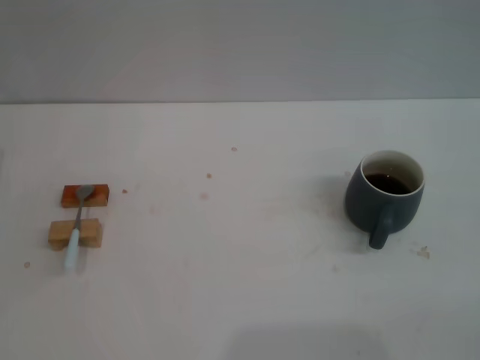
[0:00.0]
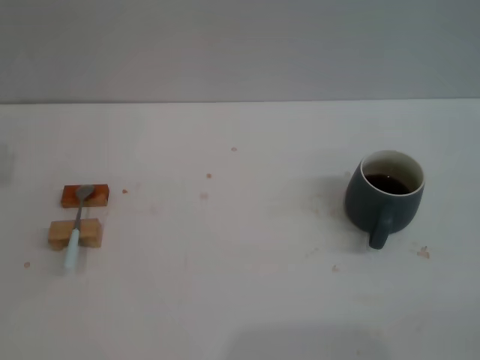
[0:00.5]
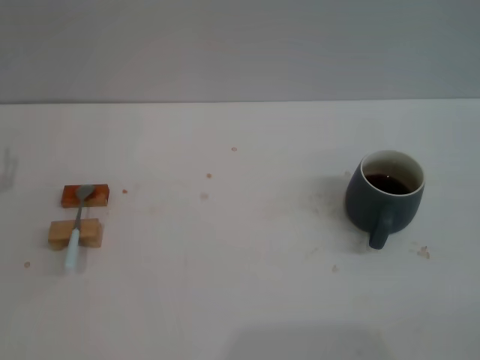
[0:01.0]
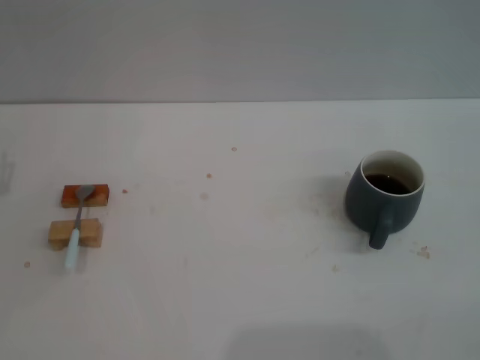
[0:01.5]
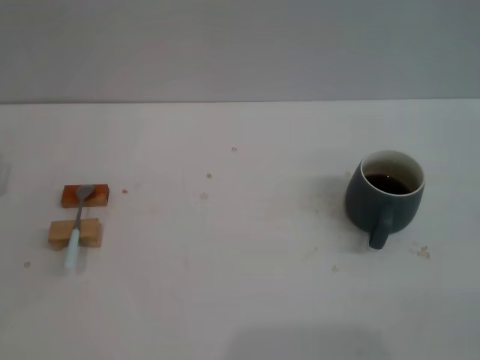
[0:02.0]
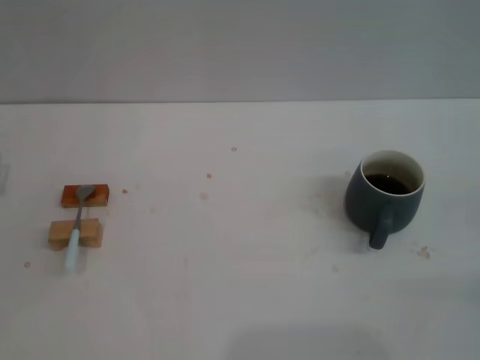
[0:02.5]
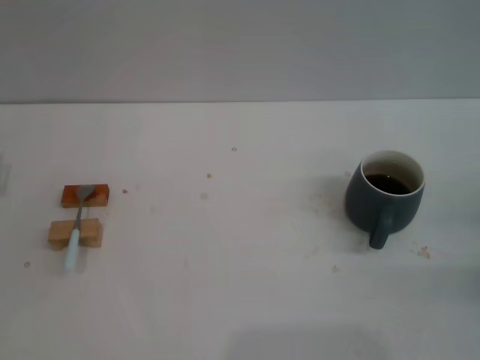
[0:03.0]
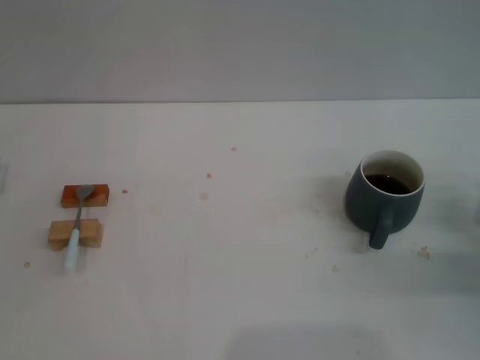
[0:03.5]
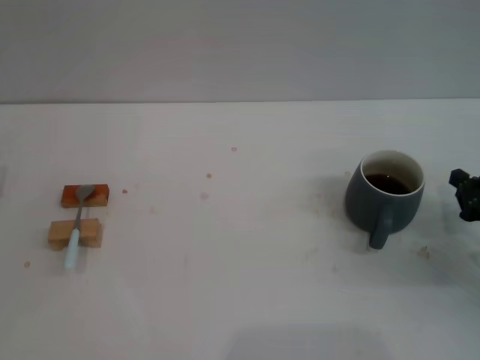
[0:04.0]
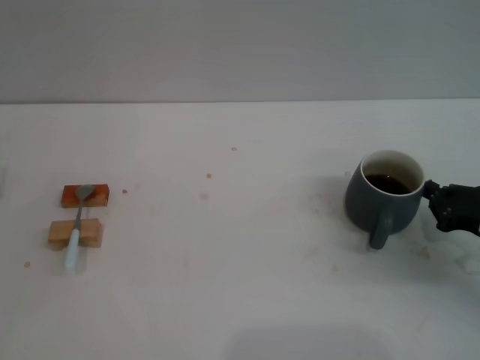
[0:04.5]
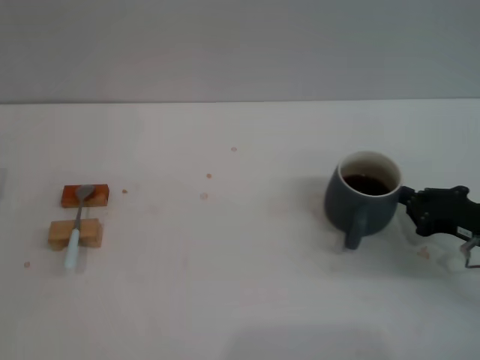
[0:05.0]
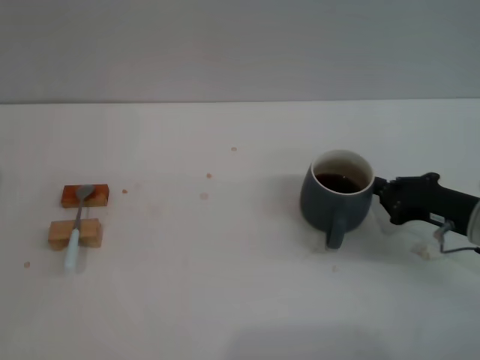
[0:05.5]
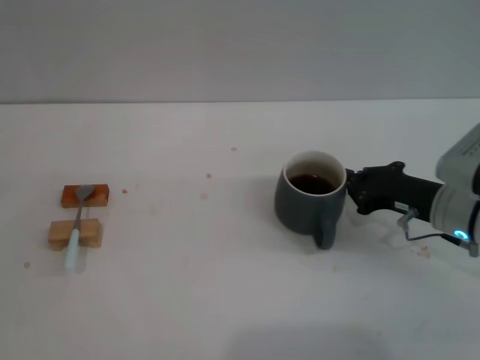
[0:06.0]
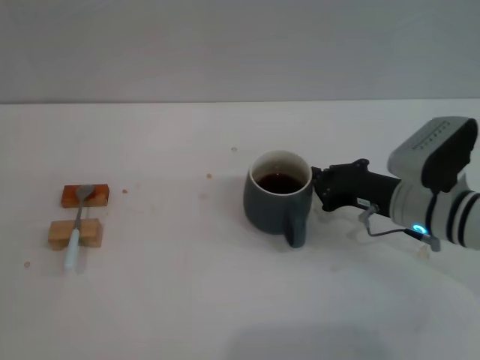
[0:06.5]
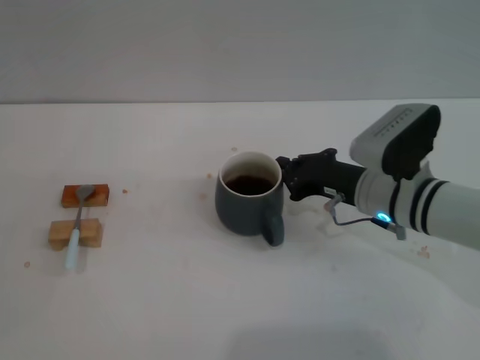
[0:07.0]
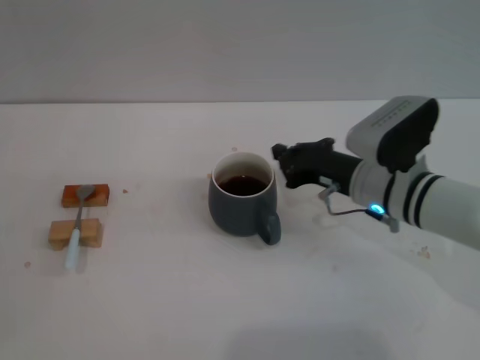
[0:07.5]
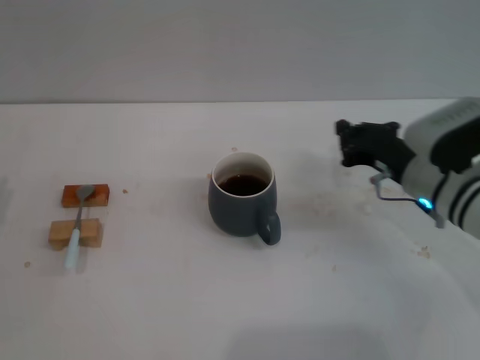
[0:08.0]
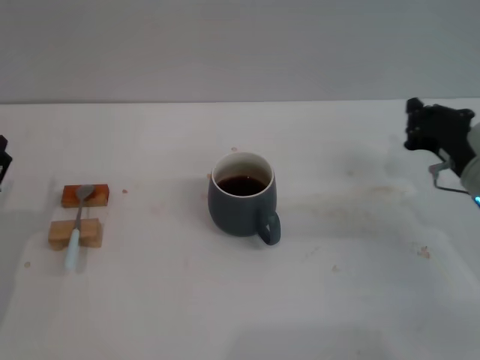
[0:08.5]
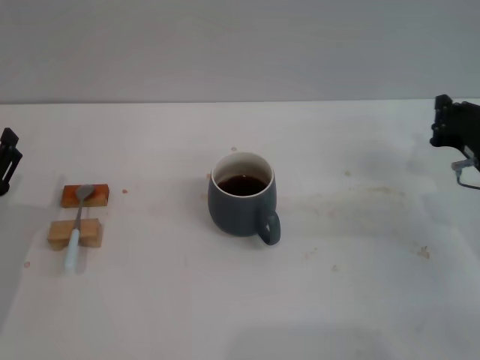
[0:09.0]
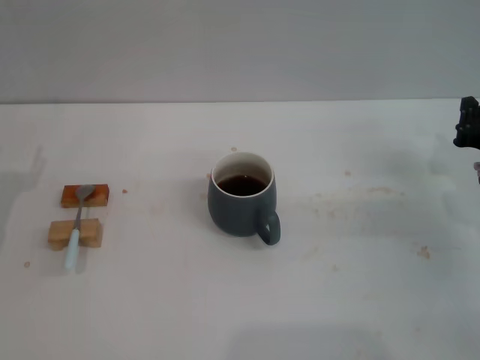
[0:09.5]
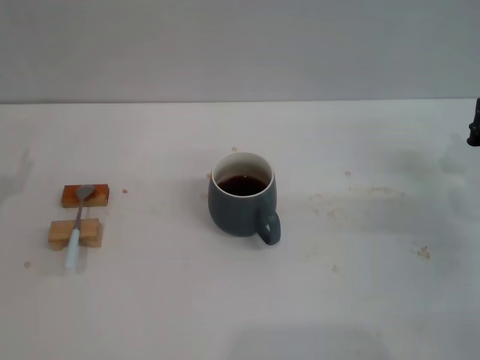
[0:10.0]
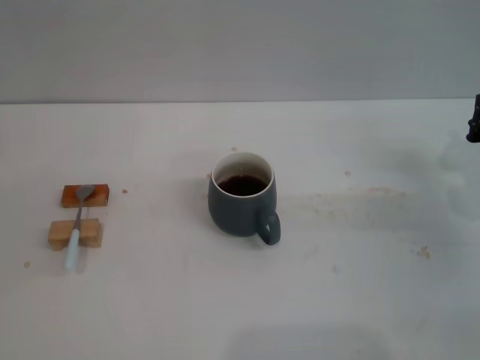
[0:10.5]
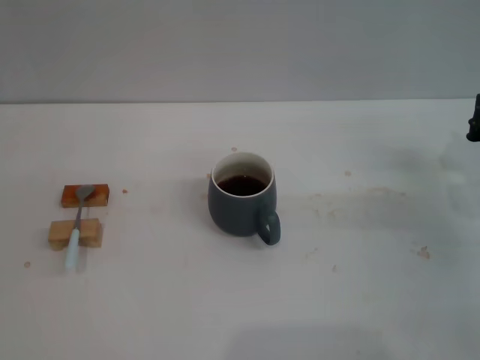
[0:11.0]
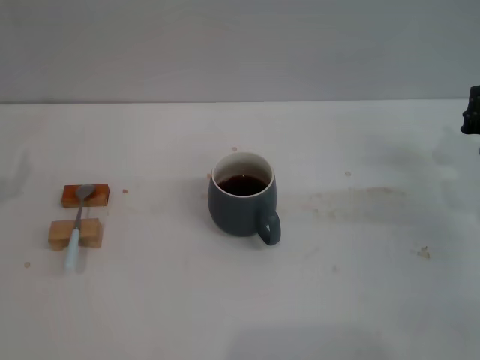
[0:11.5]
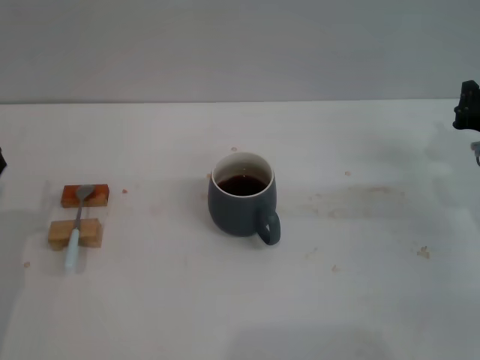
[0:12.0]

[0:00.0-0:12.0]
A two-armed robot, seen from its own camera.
Task of the whole recording: Move the grey cup to the center, lift the blue spoon, stir it three times in the cup, and put the spoon into the cup.
Step, 0:00.0 to 0:07.5: Move the cup with coffee to the center of view with the right gripper.
0:02.0 to 0:04.0: The right gripper heads to the left and forward, covering roughly 10 cm.
0:04.0 to 0:06.0: The right gripper travels to the left and forward by about 10 cm.
0:08.0 to 0:10.0: The left gripper goes approximately 5 cm forward. Meanwhile the right gripper heads to the right, covering roughly 10 cm.

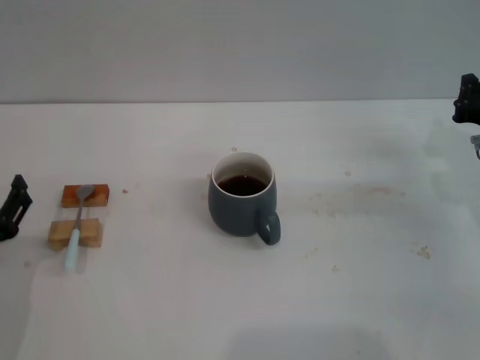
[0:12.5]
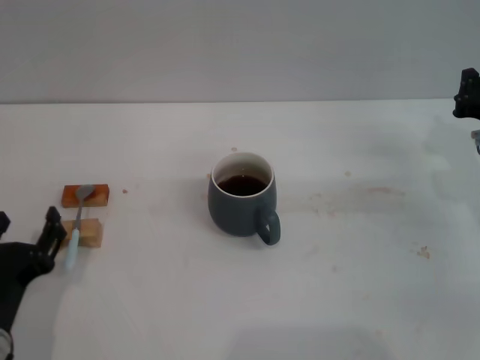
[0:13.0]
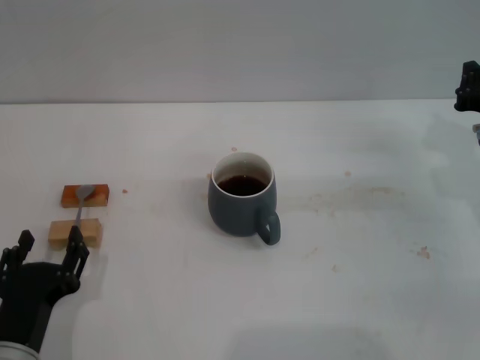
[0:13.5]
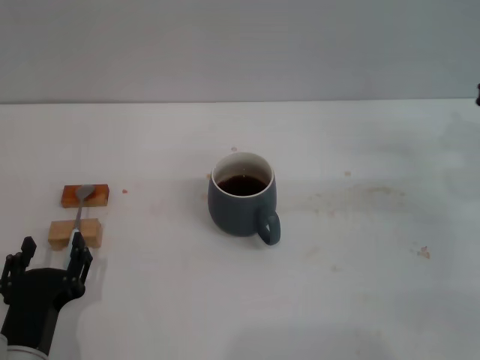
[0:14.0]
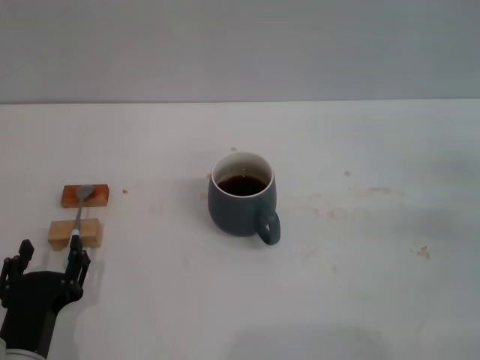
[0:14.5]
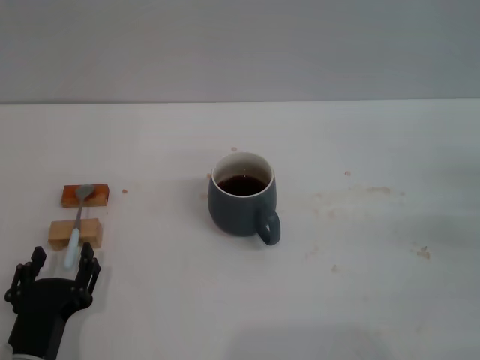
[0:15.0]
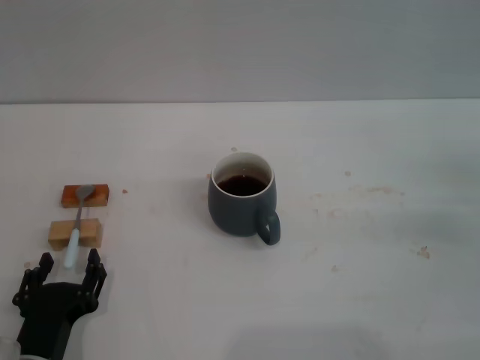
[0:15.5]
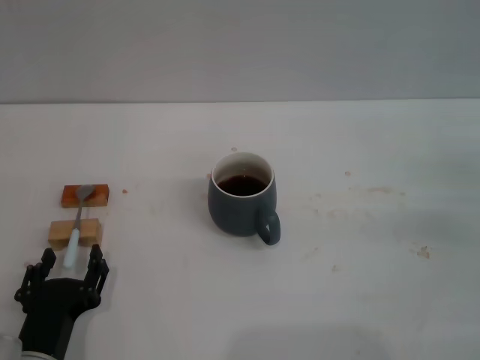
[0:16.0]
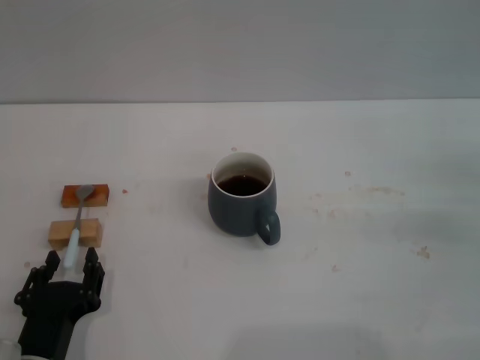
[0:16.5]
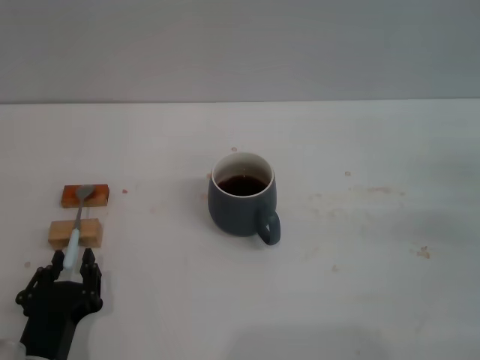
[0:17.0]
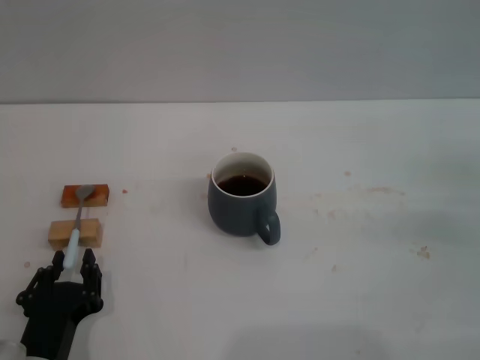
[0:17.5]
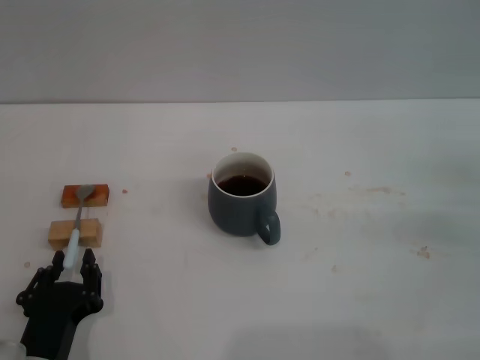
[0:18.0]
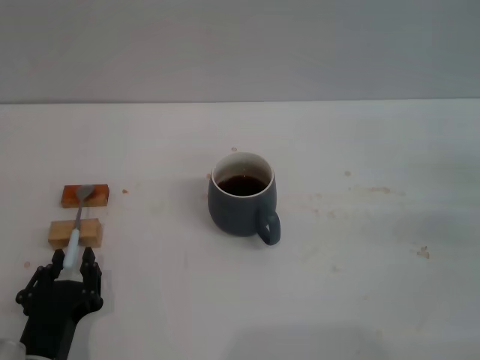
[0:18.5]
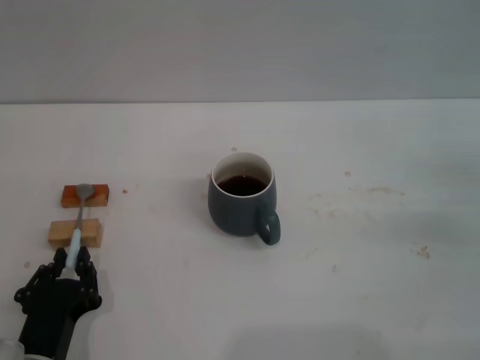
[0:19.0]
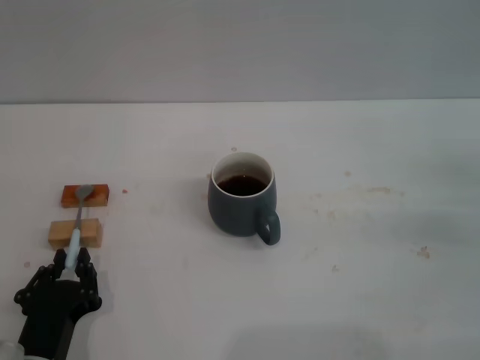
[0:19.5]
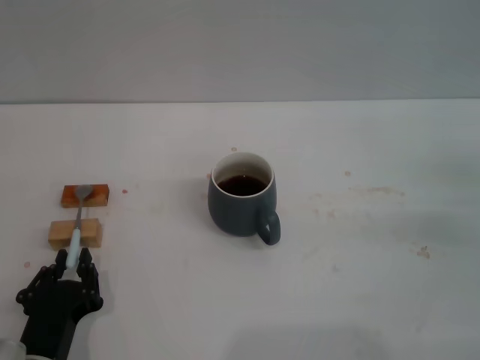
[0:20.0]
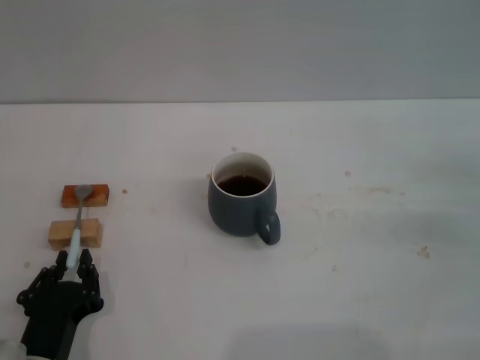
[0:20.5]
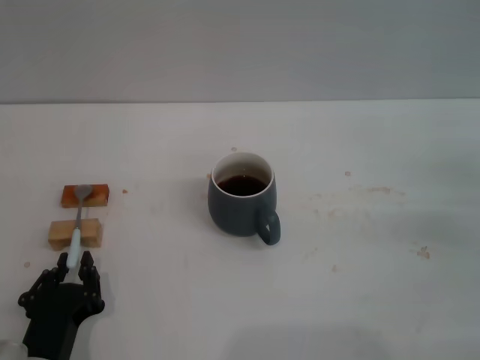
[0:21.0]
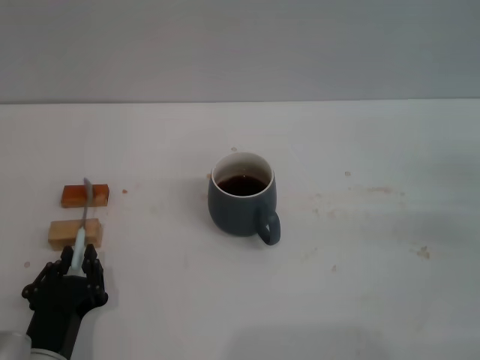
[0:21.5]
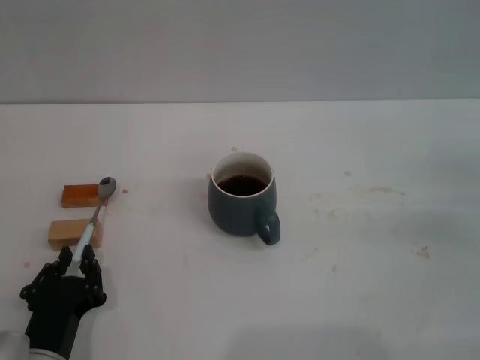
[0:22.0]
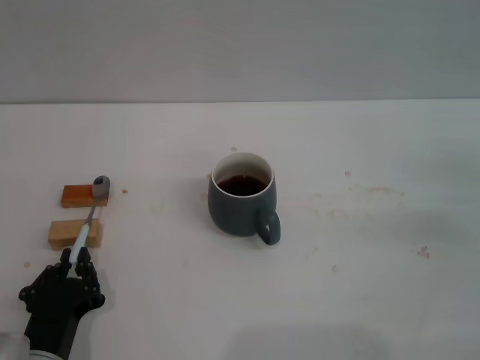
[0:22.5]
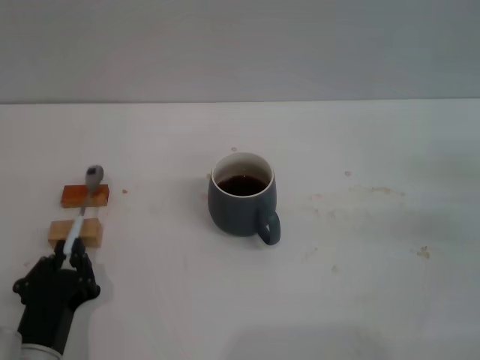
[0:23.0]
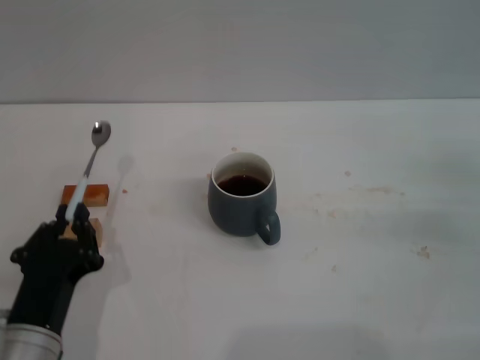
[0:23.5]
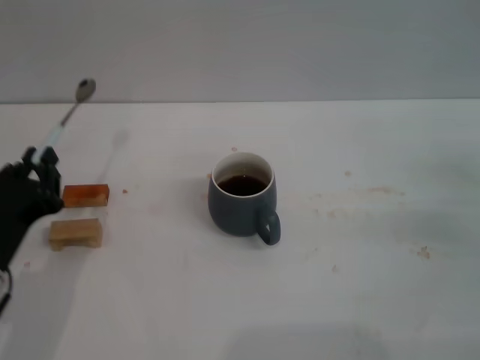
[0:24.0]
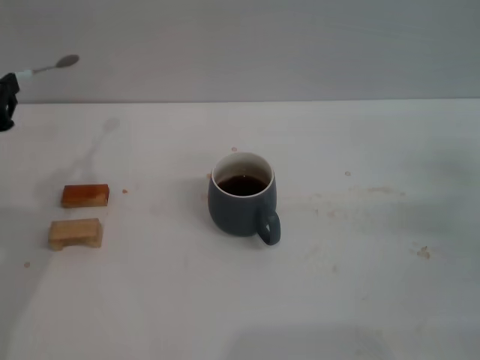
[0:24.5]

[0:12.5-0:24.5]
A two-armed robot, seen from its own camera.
Task of the whole recording: Move the grey cup to the center, lift the blue spoon, stir it three times in the cup, and put the spoon into the cup.
Step, 0:12.5 to 0:24.5: Pick up the spoon with the left gripper.
0:12.5 to 0:14.5: The left gripper travels to the right and downward by roughly 10 cm. The right gripper is displaced to the right and backward by about 10 cm.
0:14.5 to 0:16.5: Both grippers stay about where they are.
0:16.5 to 0:18.5: The left gripper closes its fingers.
0:18.5 to 0:22.5: The two grippers keep their place.
0:22.5 to 0:24.5: The left gripper is displaced upward and forward by roughly 20 cm.

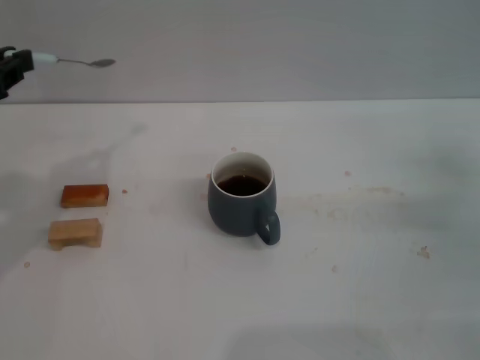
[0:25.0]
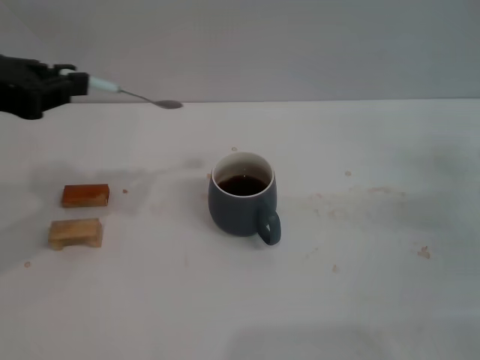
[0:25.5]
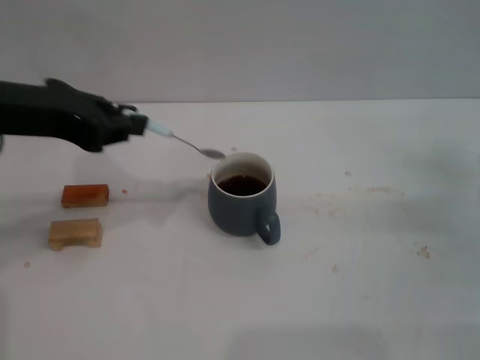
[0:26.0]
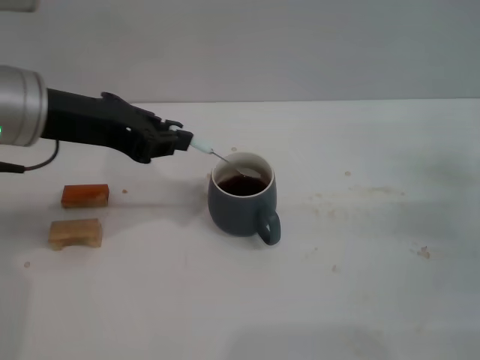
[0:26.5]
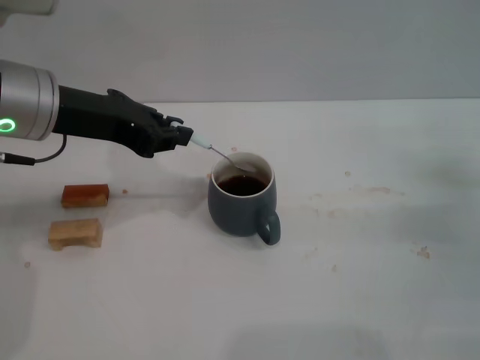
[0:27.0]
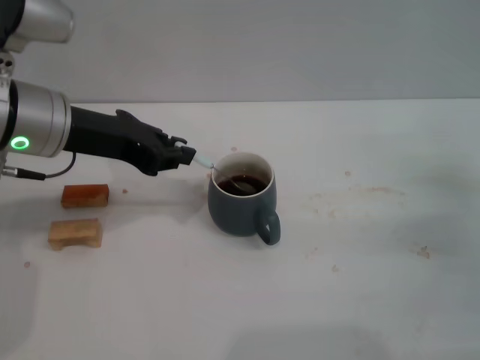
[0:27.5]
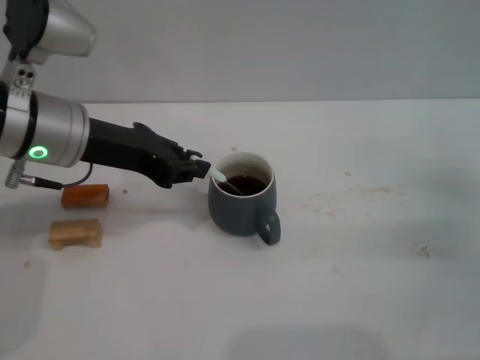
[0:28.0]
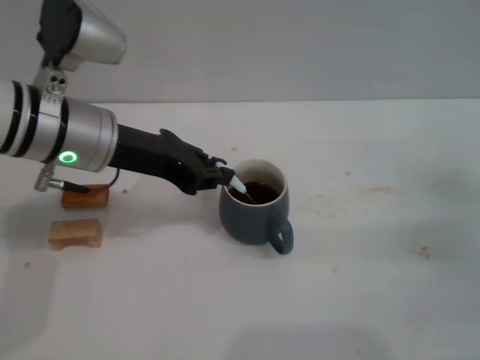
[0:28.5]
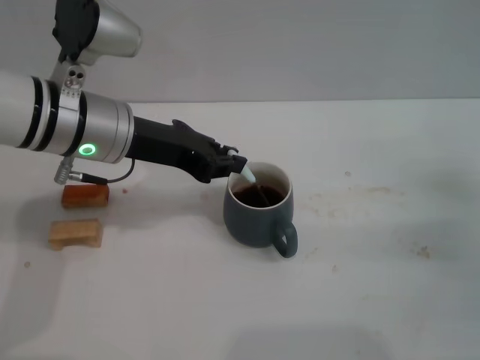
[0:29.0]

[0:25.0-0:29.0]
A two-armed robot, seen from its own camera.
Task of the whole recording: Move the grey cup to the center, lift the blue spoon, stir it three times in the cup, and put the spoon into the cup.
0:25.0 to 0:27.0: The left gripper goes approximately 10 cm to the right and forward.
0:27.0 to 0:29.0: The left gripper shifts by approximately 5 cm.
